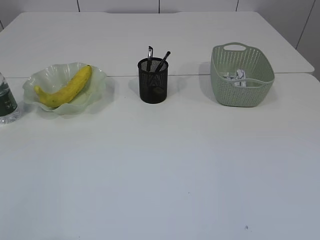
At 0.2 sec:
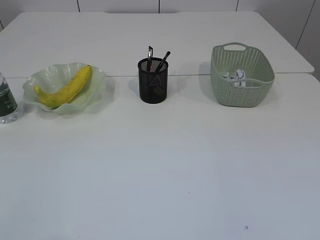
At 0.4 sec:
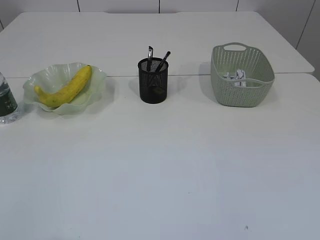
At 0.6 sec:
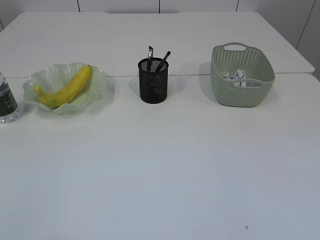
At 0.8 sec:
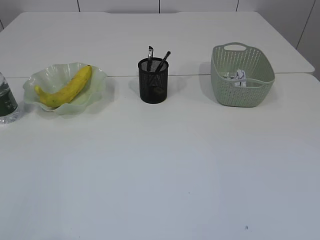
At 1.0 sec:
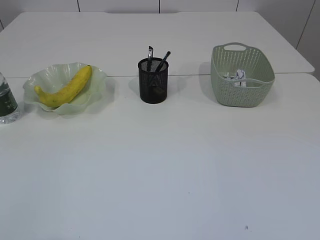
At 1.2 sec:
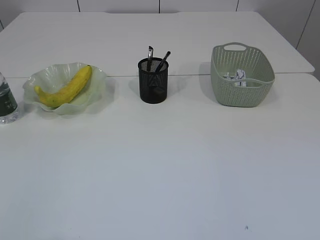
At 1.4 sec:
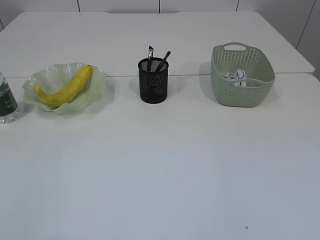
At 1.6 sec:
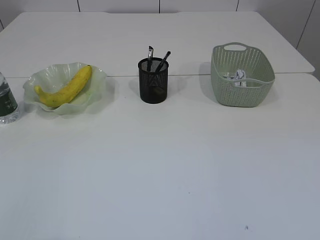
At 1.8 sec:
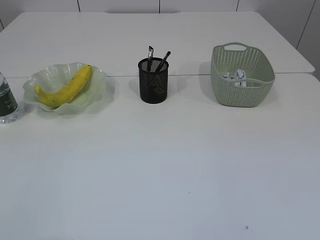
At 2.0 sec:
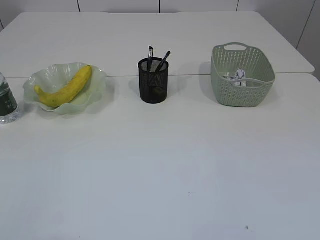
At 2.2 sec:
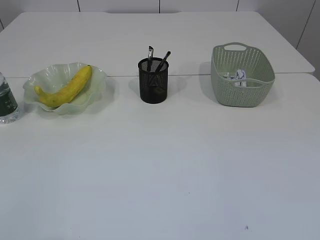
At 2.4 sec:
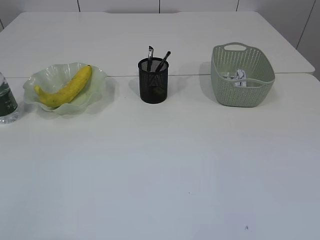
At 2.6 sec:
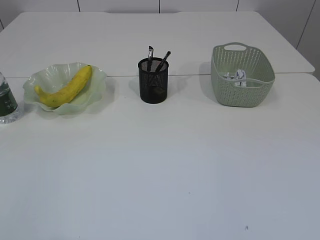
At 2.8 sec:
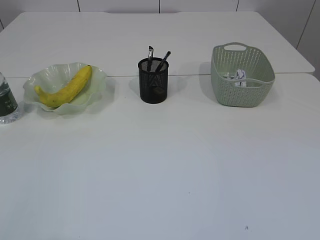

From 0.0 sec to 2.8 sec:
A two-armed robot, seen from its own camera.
From 1.4 sec to 2.8 sec: Both grippers stay about where they are.
